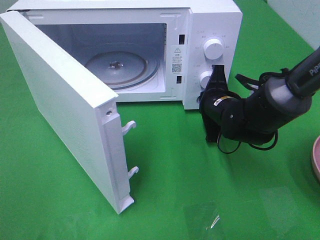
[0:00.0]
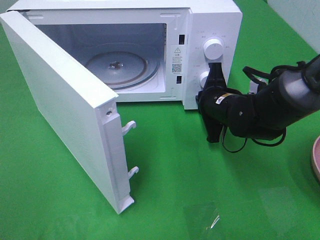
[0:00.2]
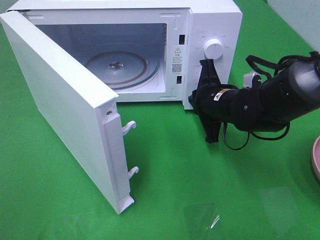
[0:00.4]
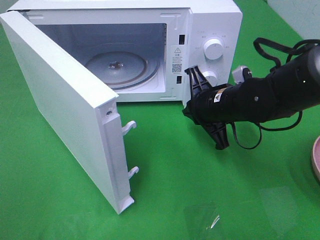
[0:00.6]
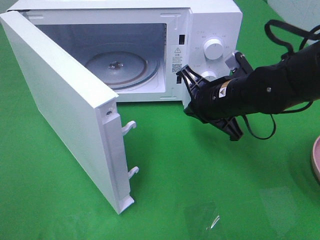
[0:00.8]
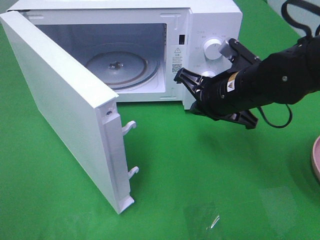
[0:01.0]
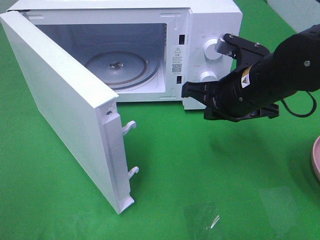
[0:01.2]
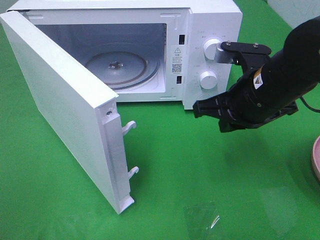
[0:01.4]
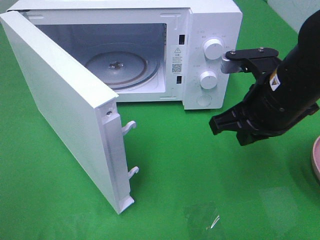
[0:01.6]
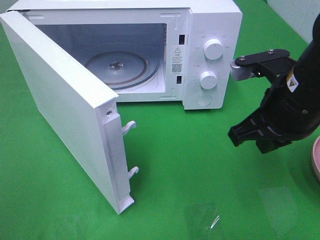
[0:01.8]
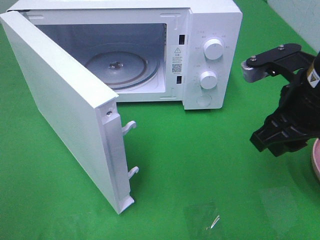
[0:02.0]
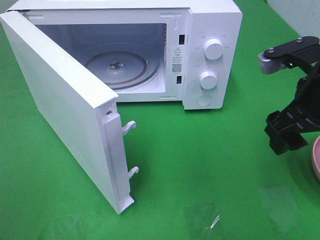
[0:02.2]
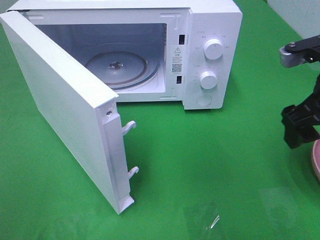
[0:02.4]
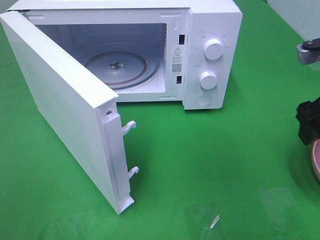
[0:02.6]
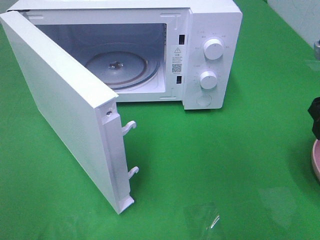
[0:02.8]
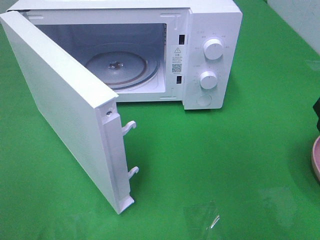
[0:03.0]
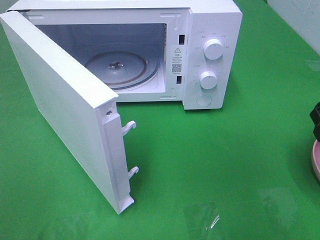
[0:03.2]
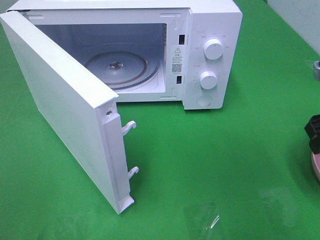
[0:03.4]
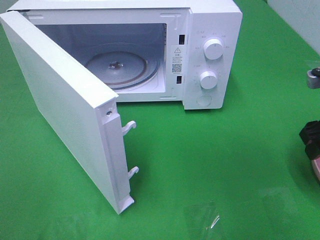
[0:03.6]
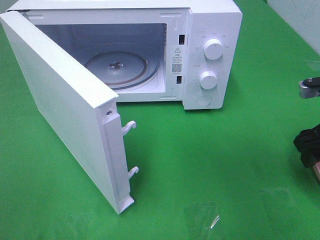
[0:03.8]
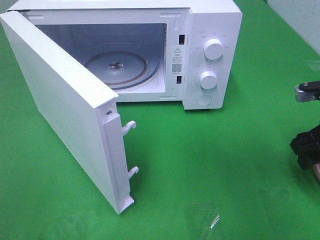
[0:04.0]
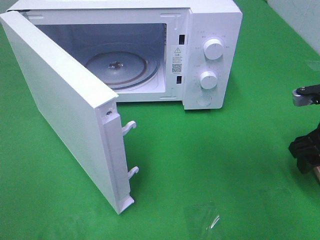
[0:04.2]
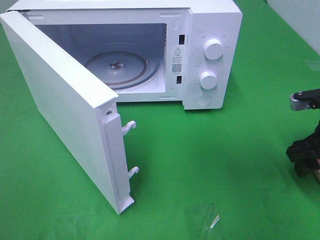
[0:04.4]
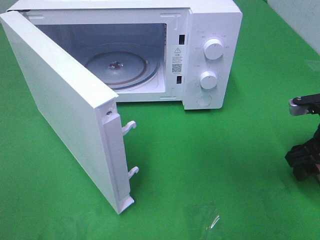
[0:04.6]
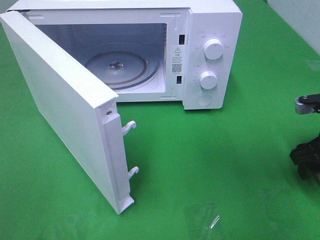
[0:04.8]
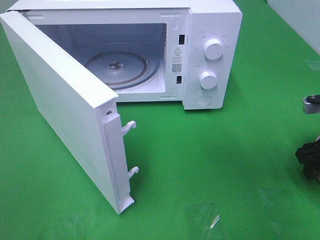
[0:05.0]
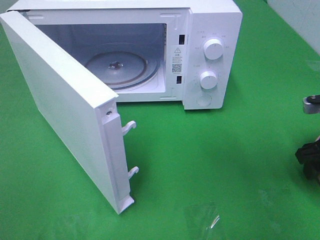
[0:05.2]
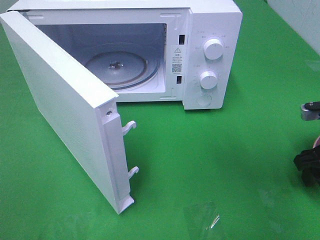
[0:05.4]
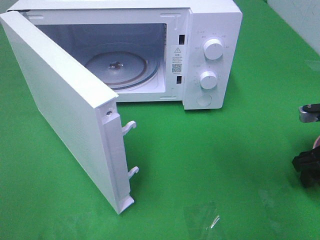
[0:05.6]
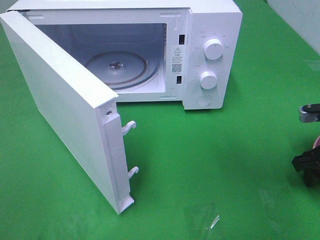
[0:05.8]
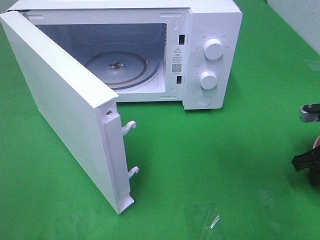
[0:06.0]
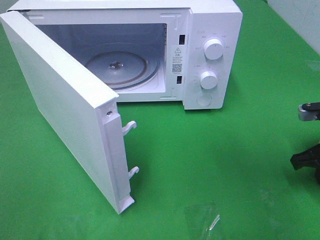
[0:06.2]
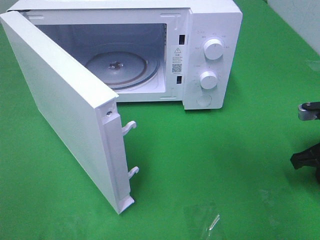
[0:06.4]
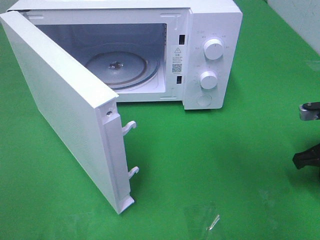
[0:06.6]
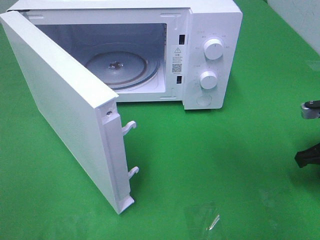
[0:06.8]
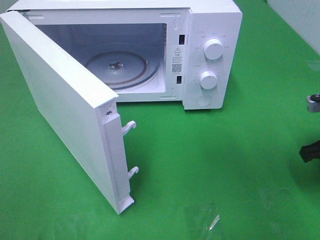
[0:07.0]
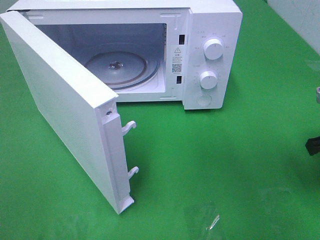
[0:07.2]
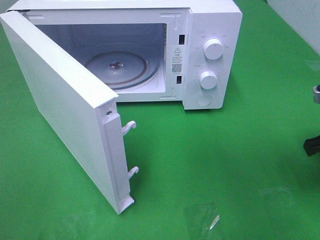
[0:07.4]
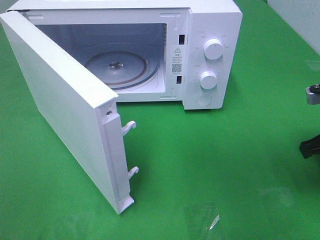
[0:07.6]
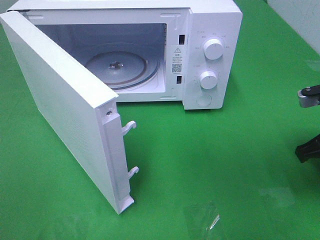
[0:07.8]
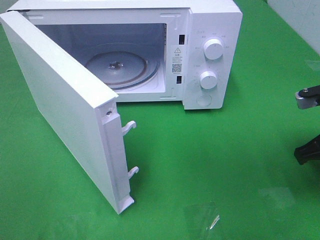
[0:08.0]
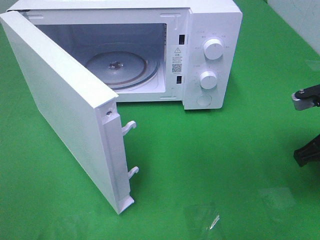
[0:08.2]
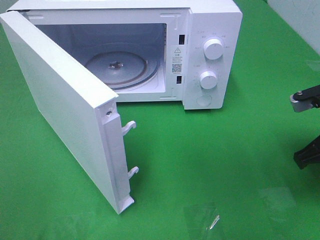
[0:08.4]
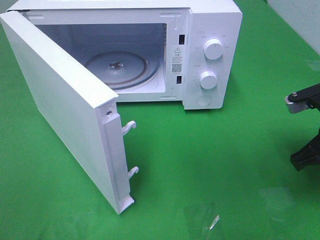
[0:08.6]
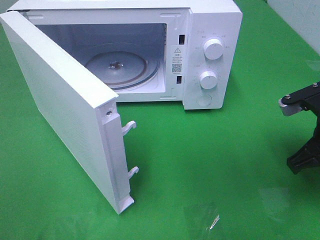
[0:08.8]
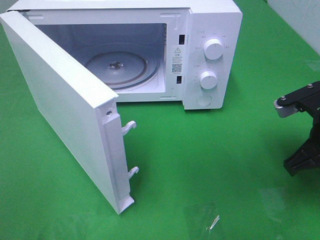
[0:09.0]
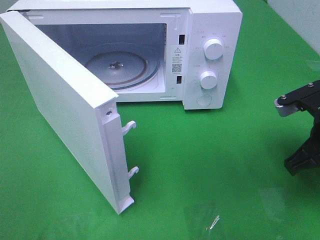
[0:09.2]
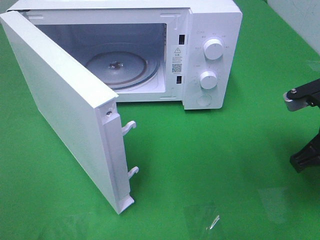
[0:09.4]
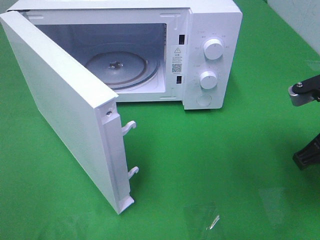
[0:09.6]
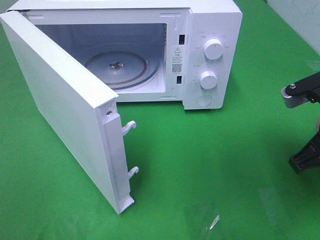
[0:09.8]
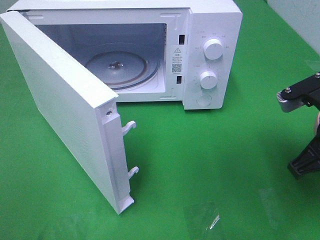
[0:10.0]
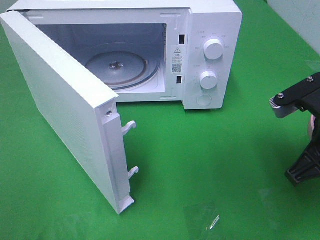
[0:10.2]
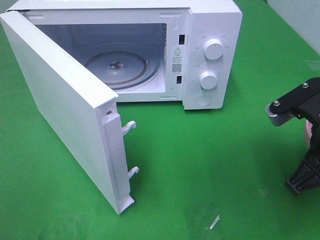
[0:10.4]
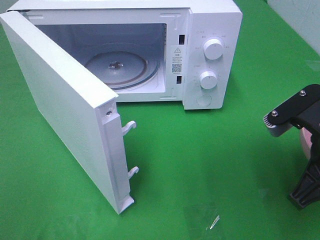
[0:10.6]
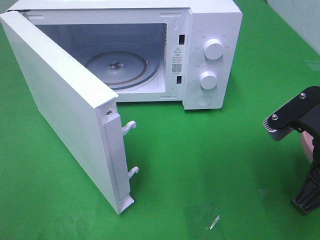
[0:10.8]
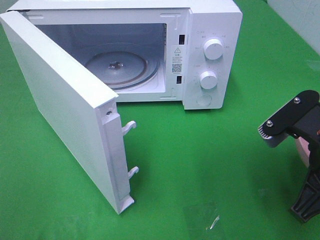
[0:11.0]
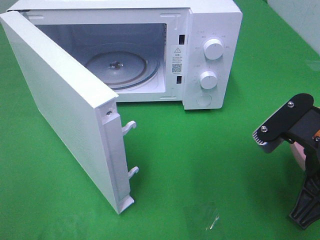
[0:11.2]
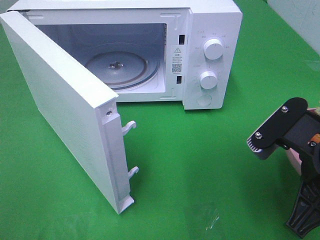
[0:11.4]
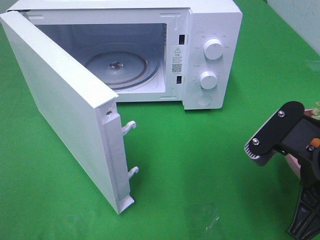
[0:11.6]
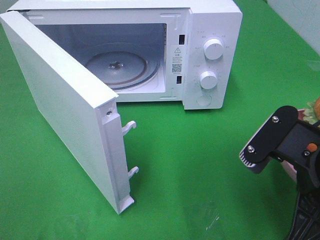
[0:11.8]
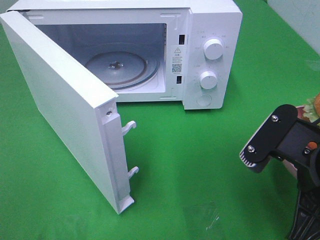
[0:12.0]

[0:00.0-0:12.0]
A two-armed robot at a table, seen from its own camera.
Task of the whole recording: Heat the burger.
Step, 0:00.4 to 0:08.0: Right hand: grab the plate with the hamburger.
0:00.0 to 0:01.6: The right gripper shifts approximately 15 cm upward and backward.
0:01.6 to 0:03.0: The right gripper heads to the right, covering about 15 cm, and opens.
0:03.0 to 0:04.4: The right gripper moves downward, some 10 cm.
0:04.4 to 0:06.0: The right gripper closes.
0:06.0 to 0:07.6: The right gripper moves upward, approximately 5 cm, and closes.
0:07.6 to 0:09.0: The grippers move only a little.
0:09.0 to 0:10.4: The right gripper heads backward, covering approximately 5 cm.
0:10.4 to 0:12.0: The right gripper moves backward, roughly 5 cm.

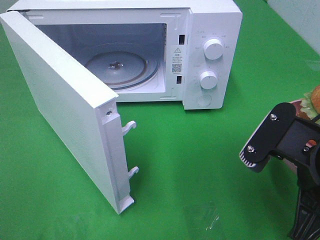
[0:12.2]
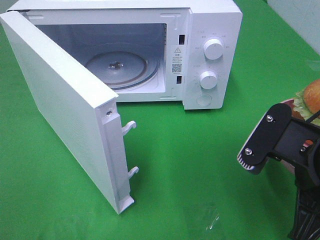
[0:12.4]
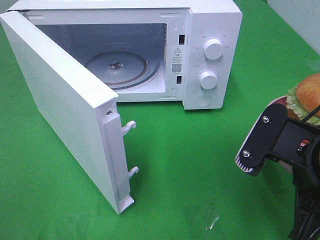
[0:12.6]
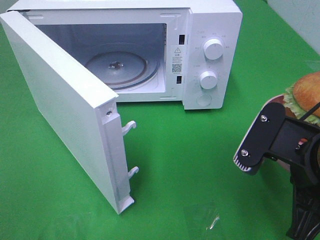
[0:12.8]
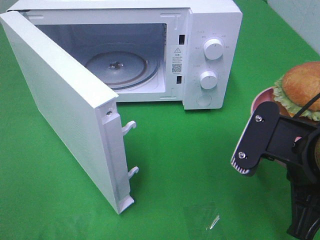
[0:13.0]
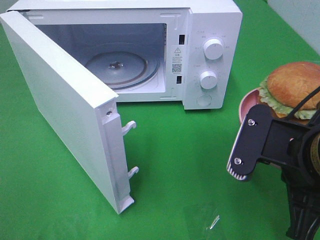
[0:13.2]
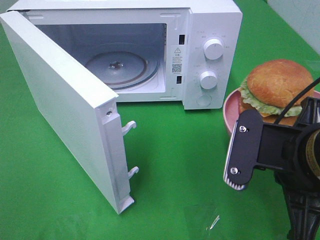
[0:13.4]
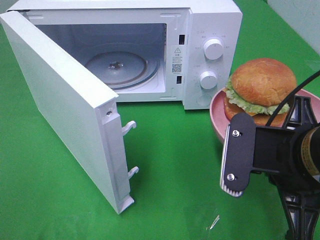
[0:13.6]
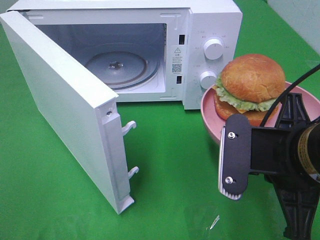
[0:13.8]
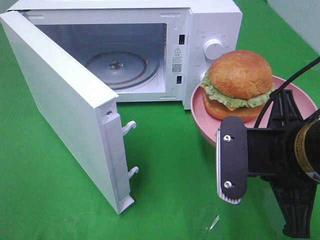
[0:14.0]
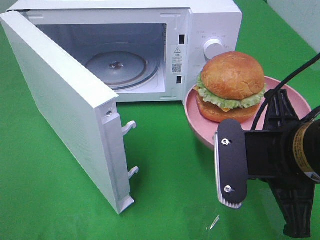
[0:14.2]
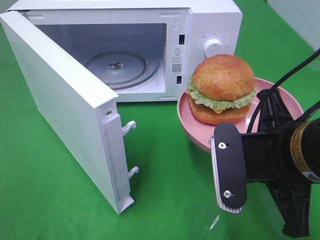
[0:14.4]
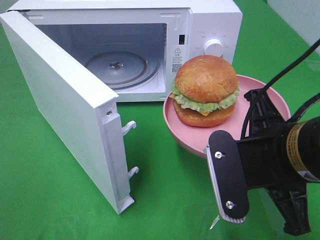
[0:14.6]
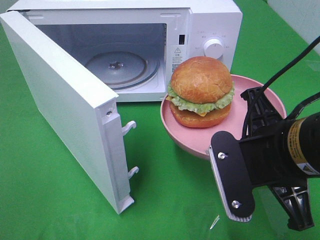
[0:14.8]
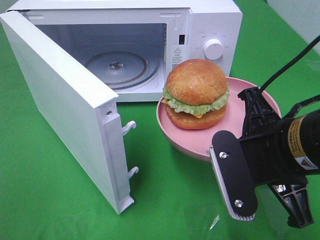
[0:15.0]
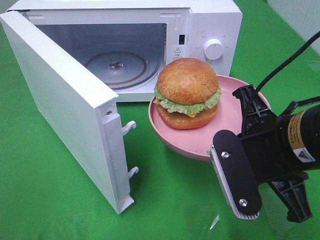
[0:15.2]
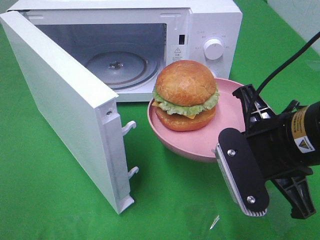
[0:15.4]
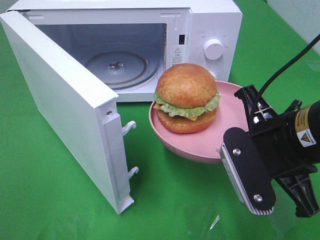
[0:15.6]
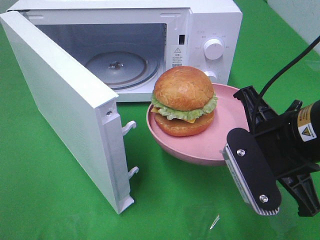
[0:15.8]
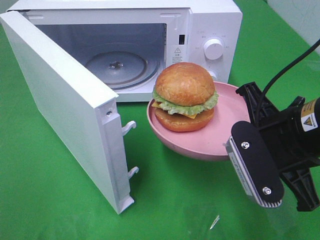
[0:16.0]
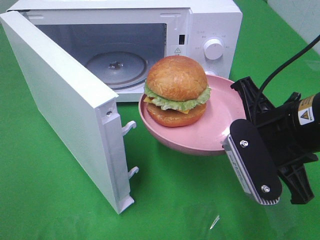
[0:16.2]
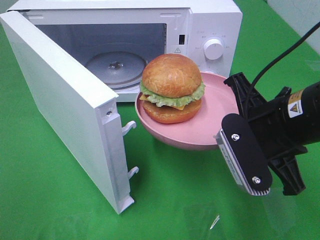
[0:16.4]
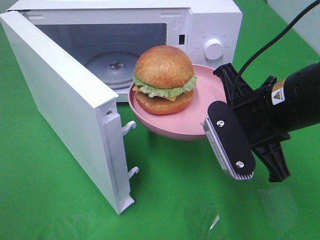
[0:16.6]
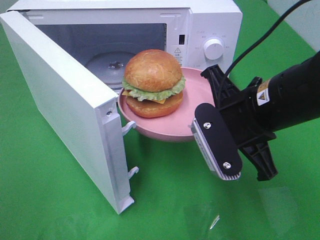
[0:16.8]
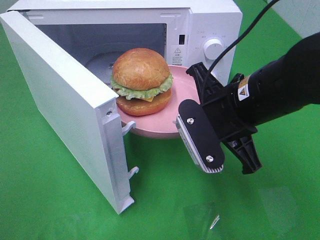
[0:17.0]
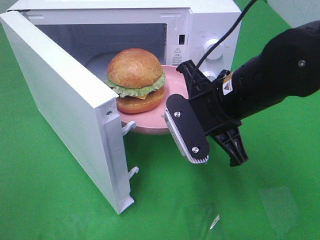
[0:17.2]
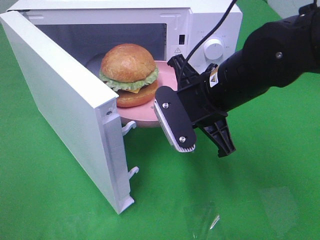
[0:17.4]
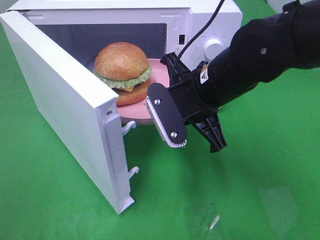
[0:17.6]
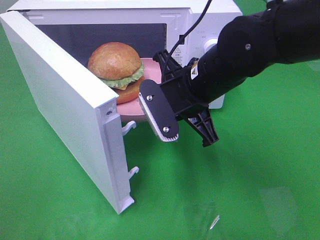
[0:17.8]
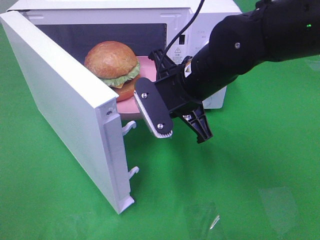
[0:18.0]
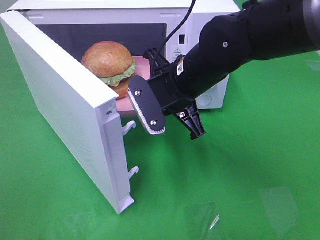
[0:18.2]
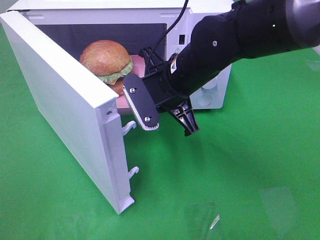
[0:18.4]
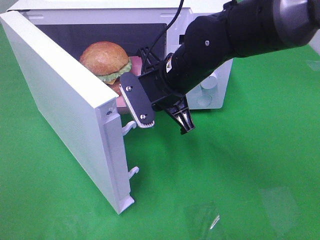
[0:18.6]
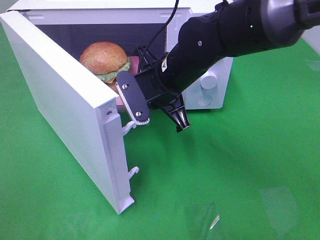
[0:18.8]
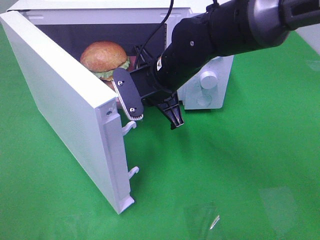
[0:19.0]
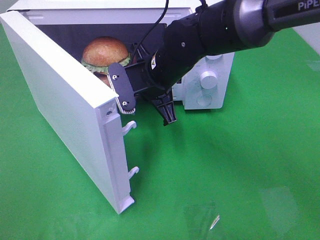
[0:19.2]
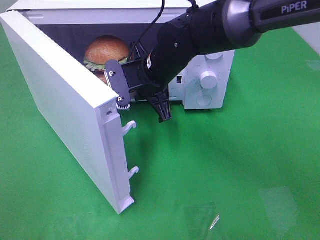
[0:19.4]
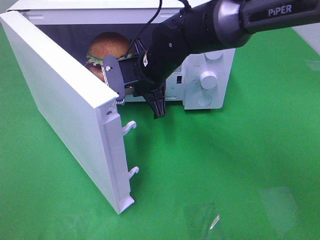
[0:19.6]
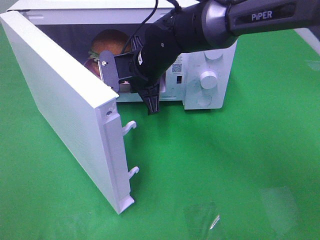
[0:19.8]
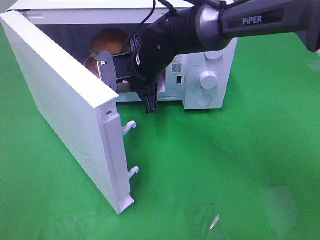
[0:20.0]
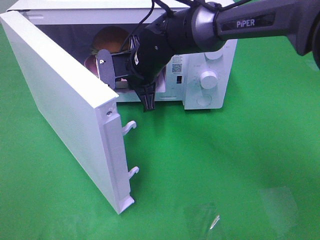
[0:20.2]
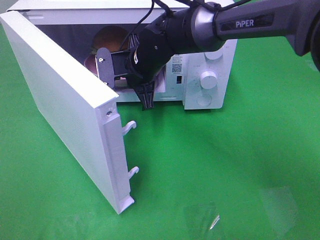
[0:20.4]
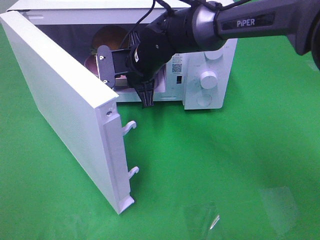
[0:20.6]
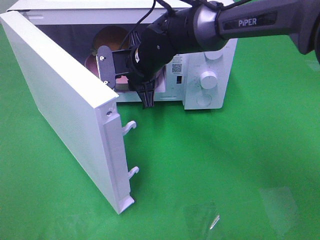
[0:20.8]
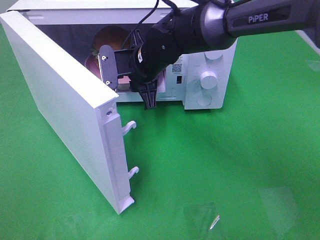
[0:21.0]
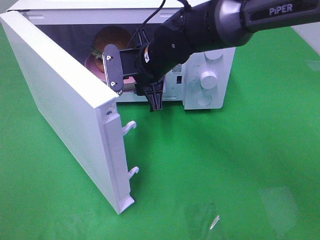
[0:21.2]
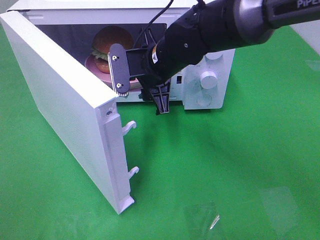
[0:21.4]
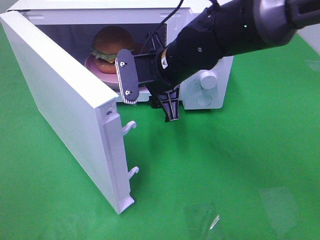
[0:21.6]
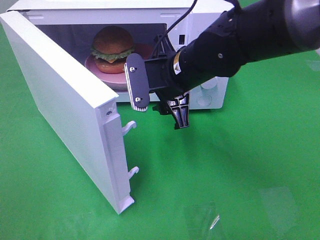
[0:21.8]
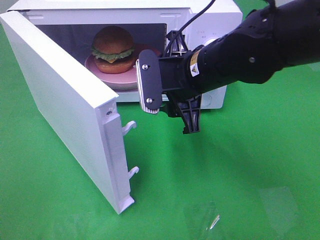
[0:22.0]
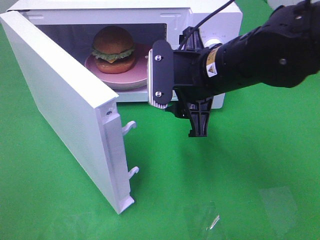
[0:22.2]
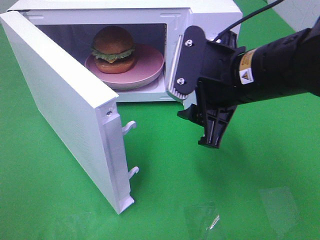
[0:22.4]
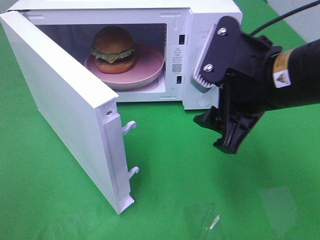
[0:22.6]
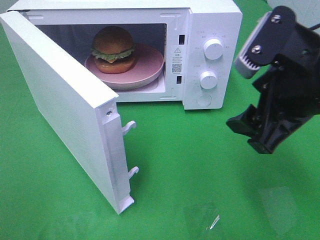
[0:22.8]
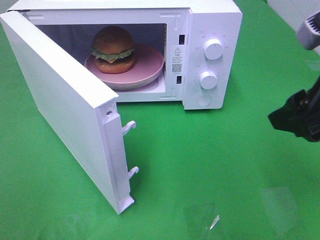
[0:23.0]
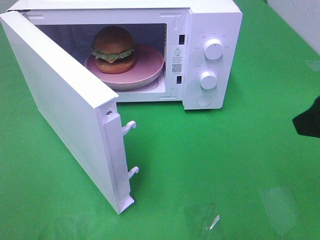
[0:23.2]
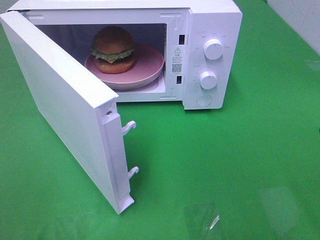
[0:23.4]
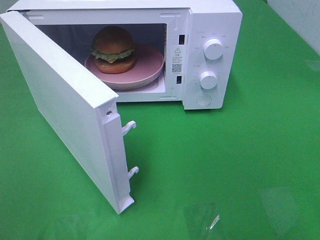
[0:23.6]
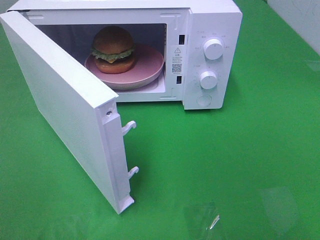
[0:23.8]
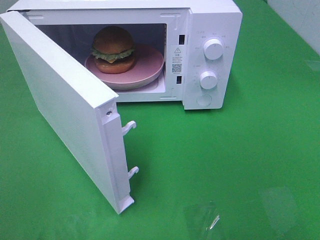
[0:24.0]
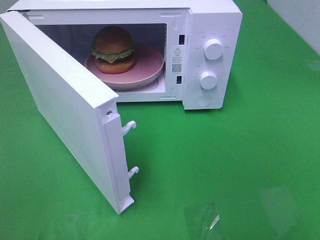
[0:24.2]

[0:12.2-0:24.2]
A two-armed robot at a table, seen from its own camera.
Task of the whole recording: Heat the burger.
Step, 0:12.2 to 0:20.6: Right hand: place the plate in the microwave.
0:15.2 to 0:16.6: The right gripper is displaced forward by about 5 cm.
0:16.6 to 0:18.2: The right gripper moves to the left and forward, approximately 15 cm.
0:18.2 to 0:19.8: The right gripper moves forward and to the left, approximately 10 cm.
0:19.8 to 0:21.2: The right gripper opens up.
0:21.2 to 0:22.6: The right gripper heads backward, to the right and upward, covering approximately 25 cm.
0:22.6 to 0:24.2: The right gripper moves backward and to the right, about 25 cm.
